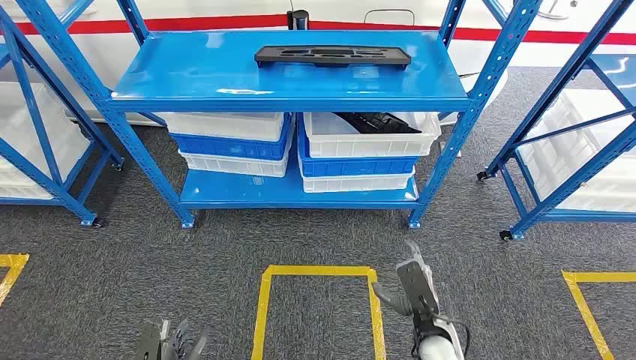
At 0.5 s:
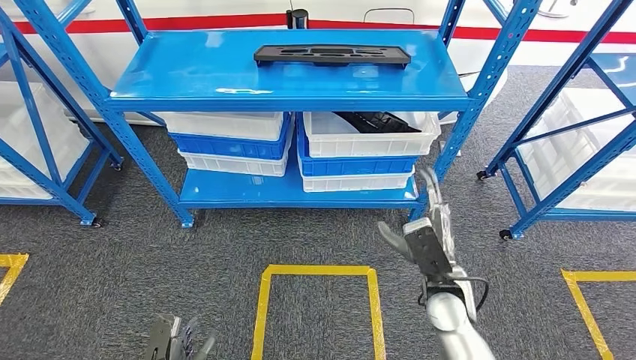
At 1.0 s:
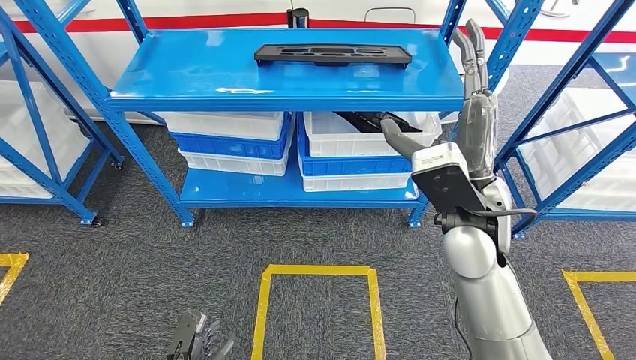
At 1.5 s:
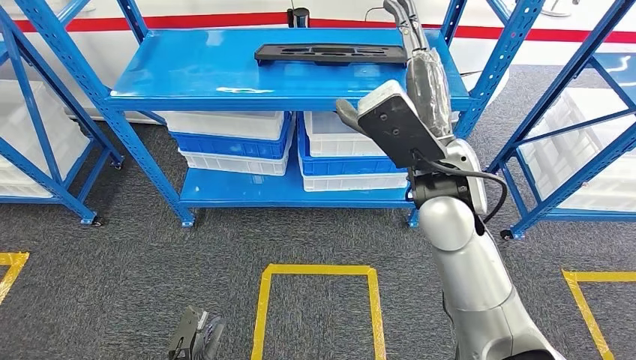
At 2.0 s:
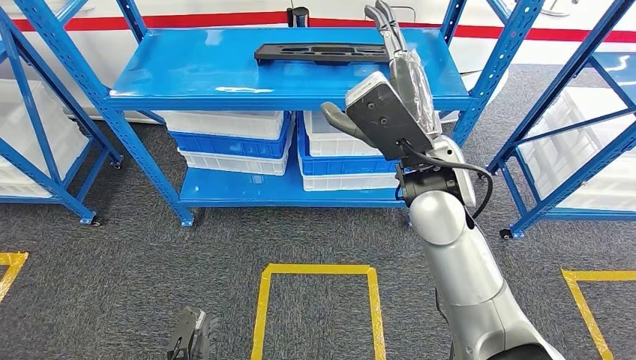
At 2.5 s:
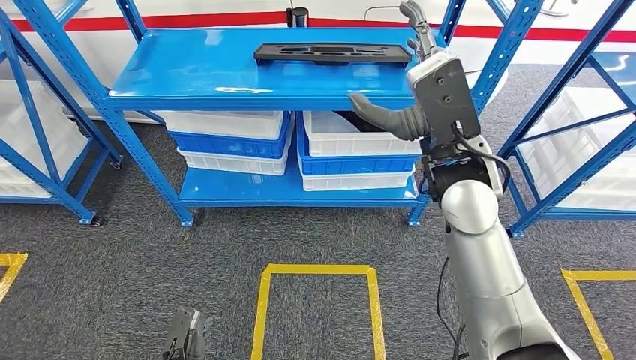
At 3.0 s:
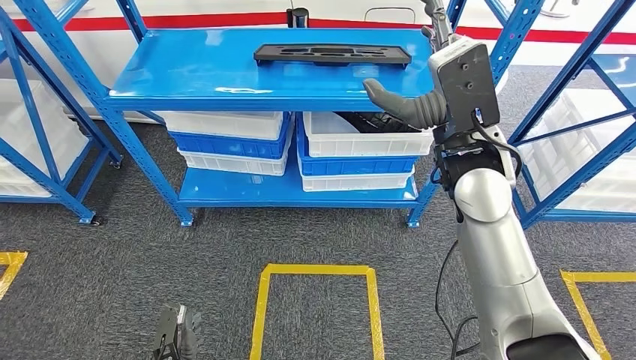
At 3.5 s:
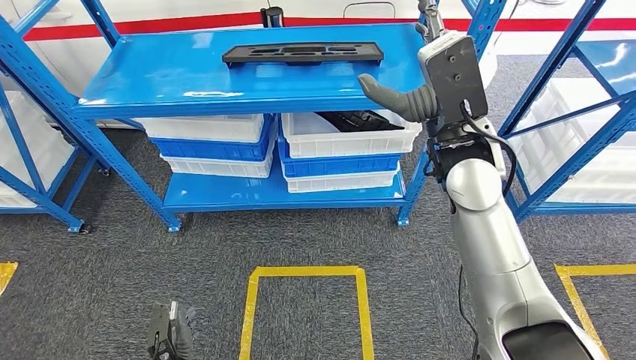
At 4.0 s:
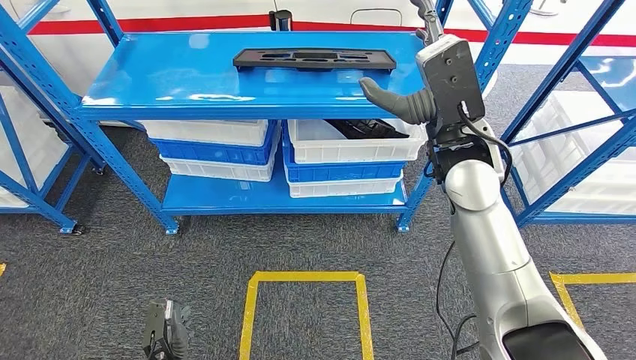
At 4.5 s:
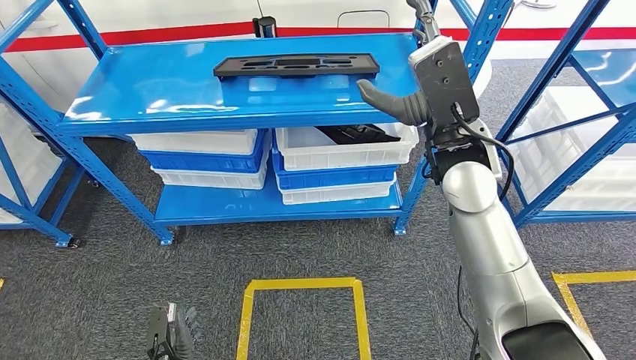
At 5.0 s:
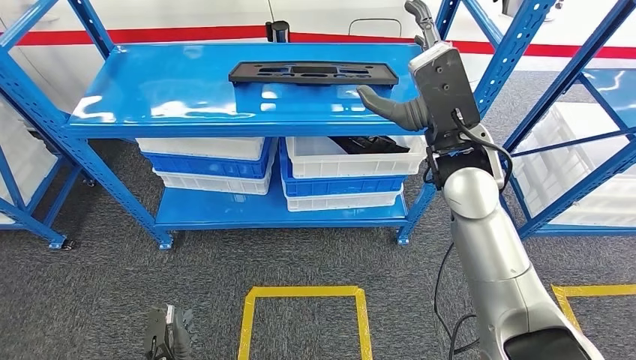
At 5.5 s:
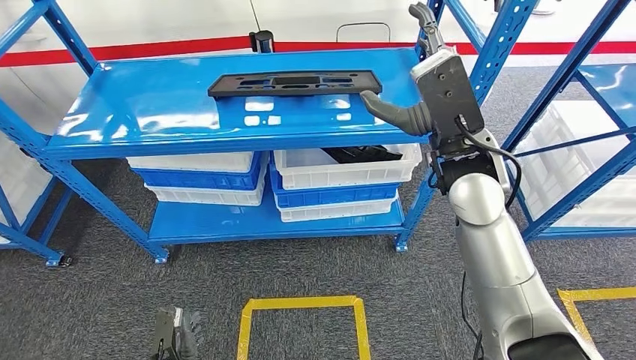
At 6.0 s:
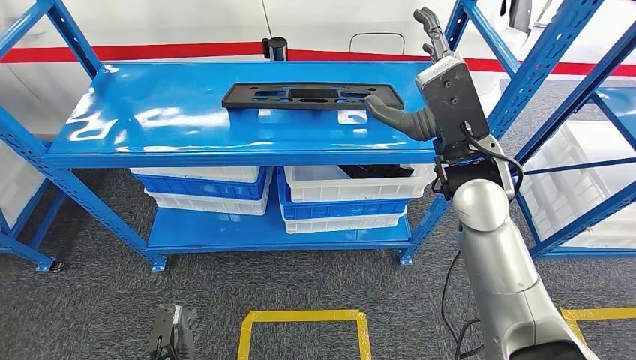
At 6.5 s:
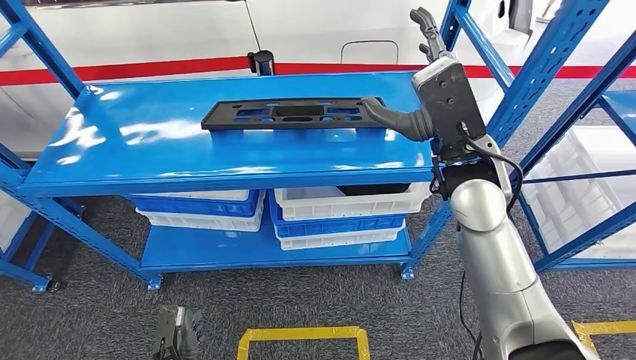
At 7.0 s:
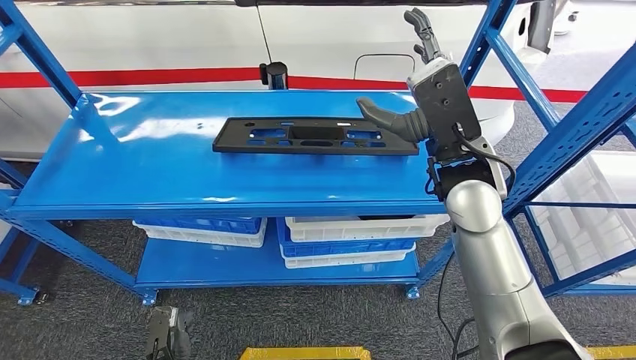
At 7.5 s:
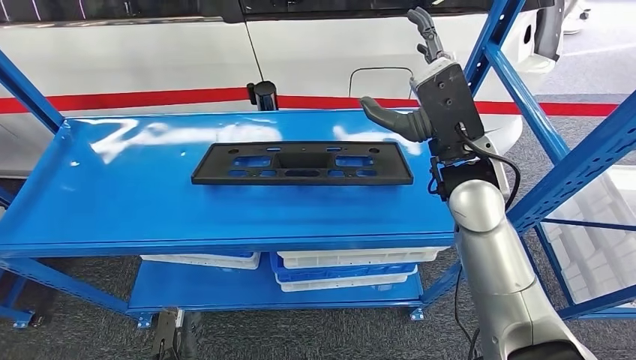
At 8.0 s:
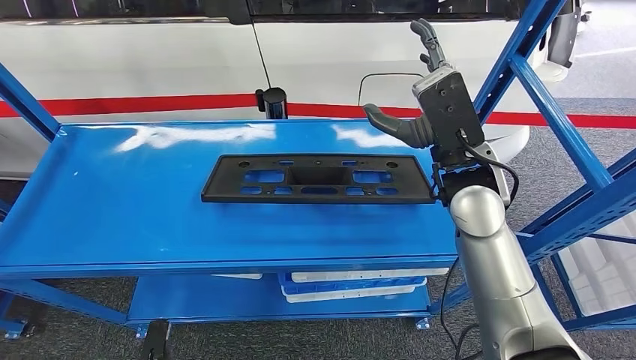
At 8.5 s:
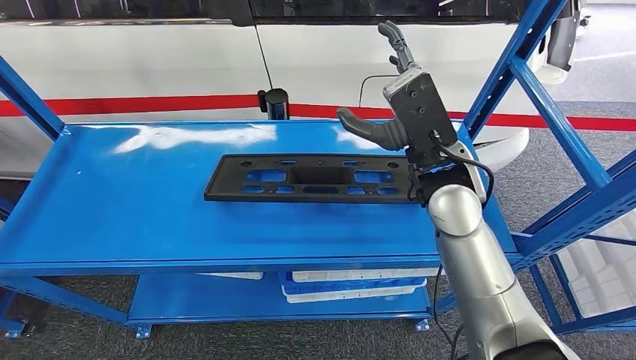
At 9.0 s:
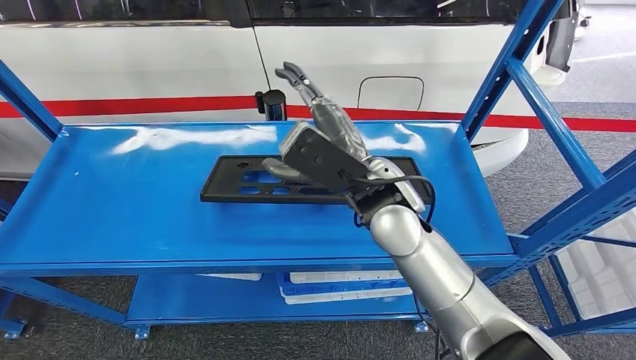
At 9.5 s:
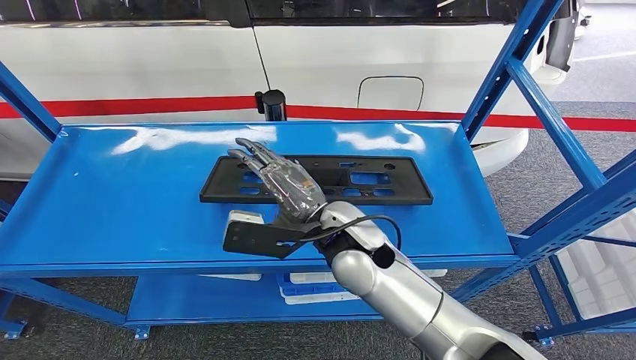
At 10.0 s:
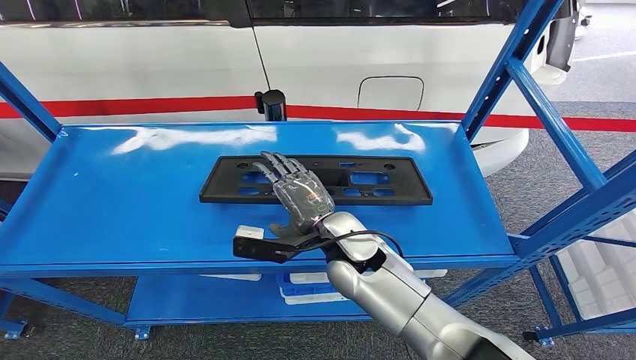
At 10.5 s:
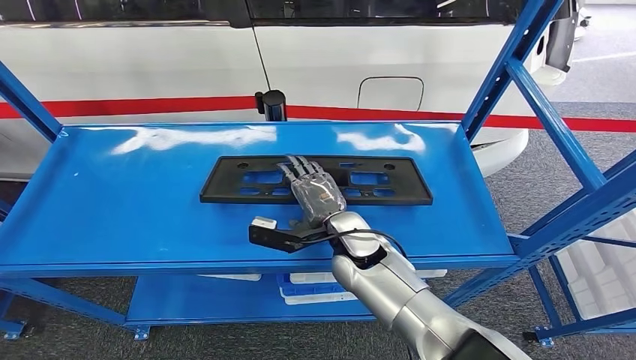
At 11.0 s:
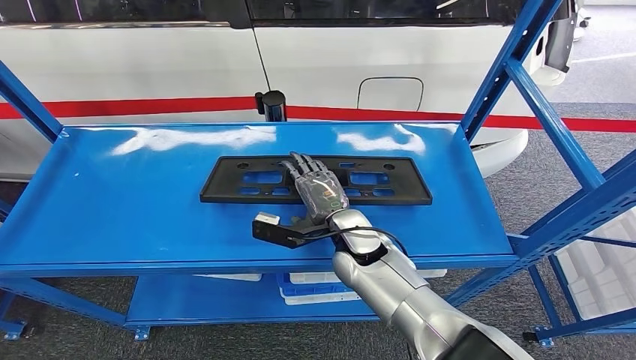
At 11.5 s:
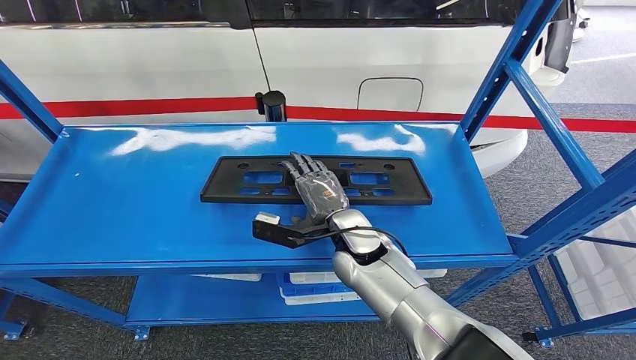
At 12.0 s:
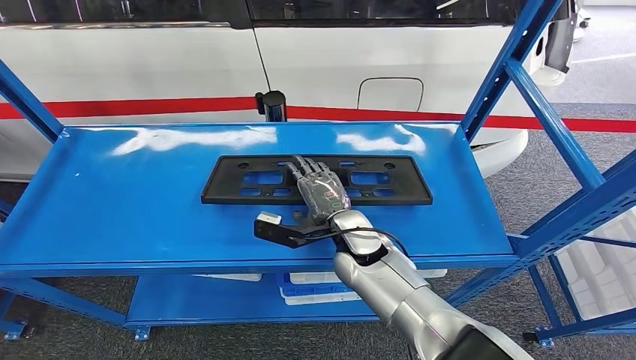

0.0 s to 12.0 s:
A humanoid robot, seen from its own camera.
10.0 to 12.0 s: The hands move only a little.

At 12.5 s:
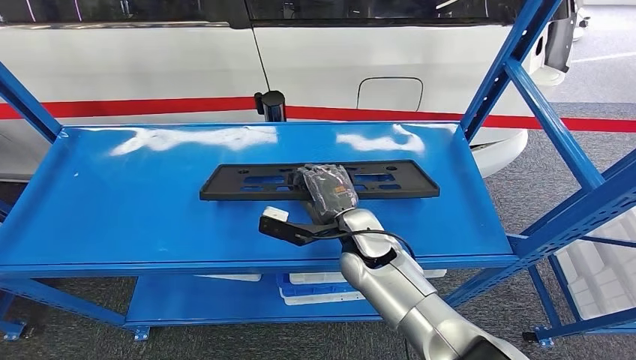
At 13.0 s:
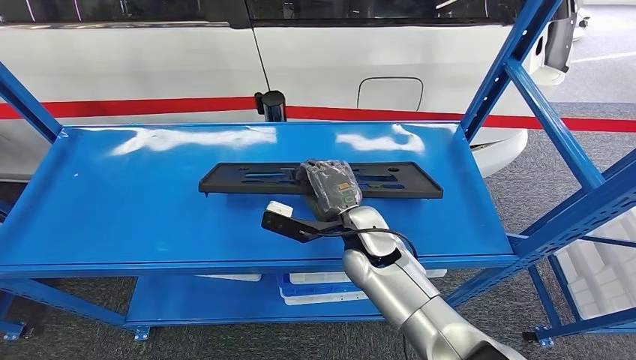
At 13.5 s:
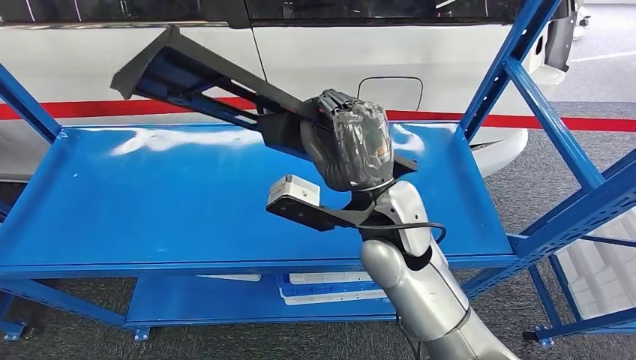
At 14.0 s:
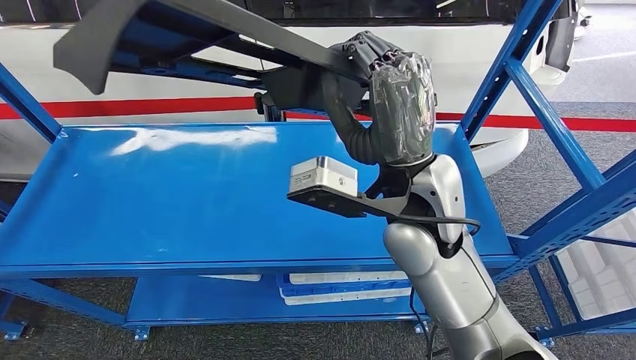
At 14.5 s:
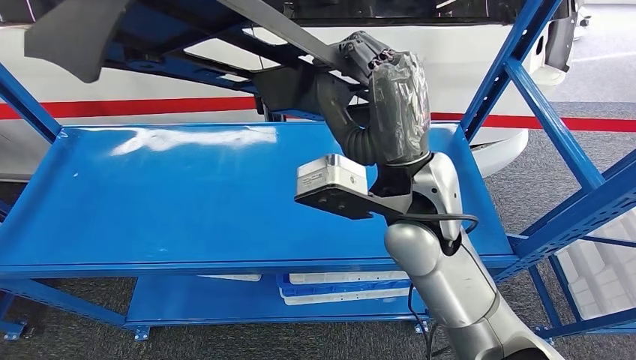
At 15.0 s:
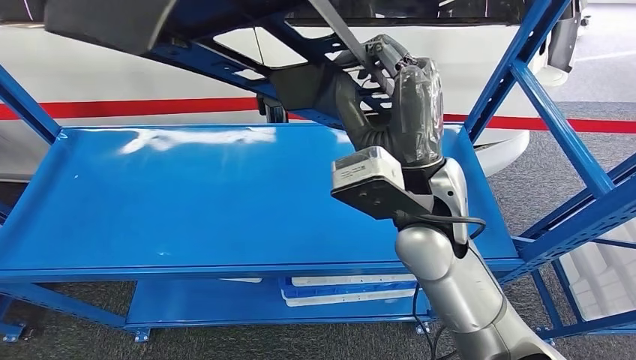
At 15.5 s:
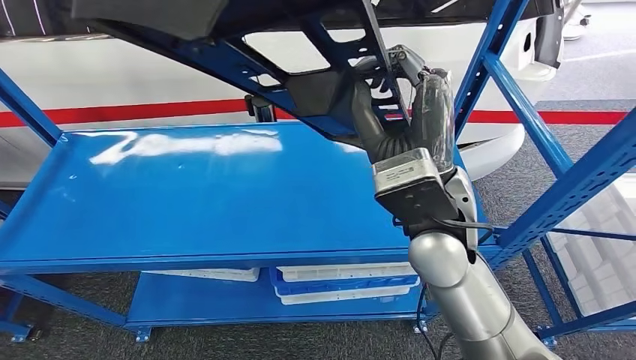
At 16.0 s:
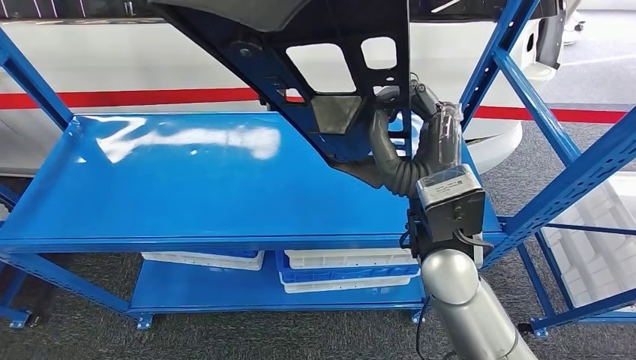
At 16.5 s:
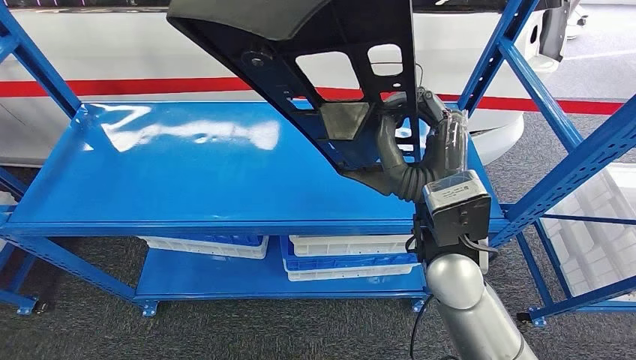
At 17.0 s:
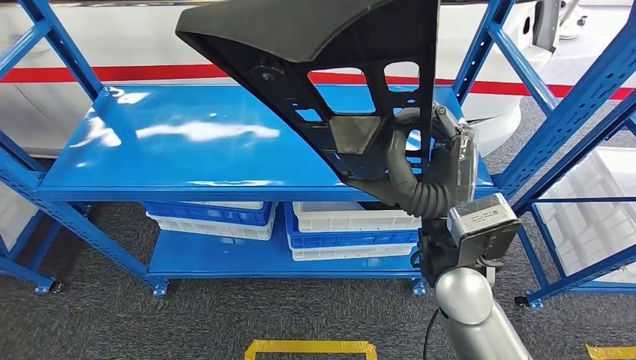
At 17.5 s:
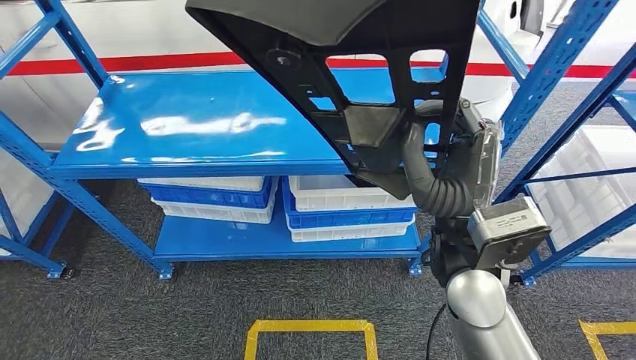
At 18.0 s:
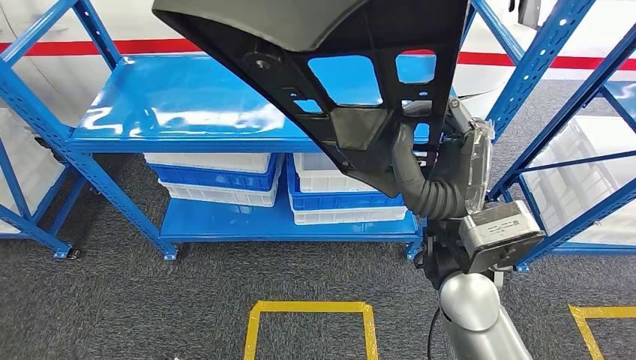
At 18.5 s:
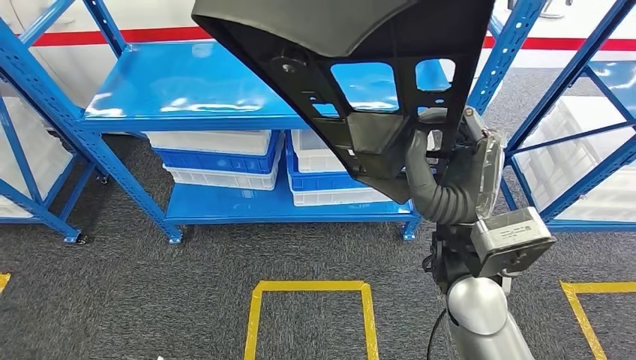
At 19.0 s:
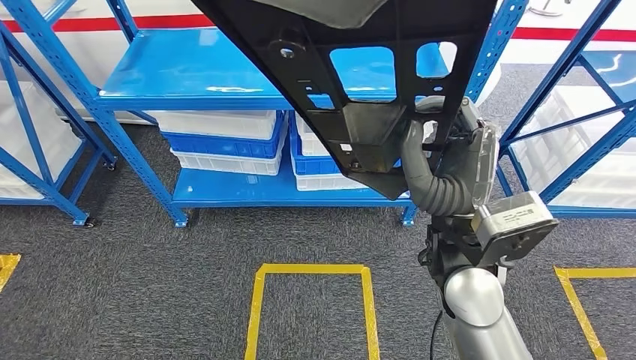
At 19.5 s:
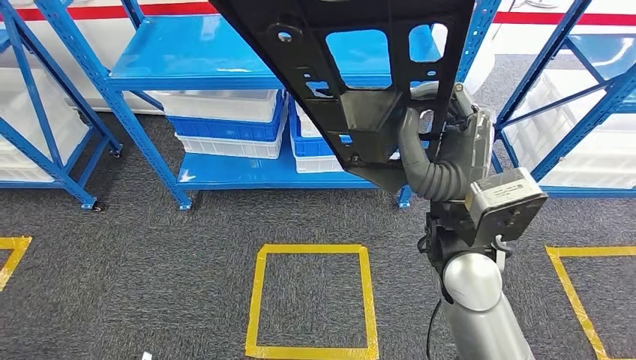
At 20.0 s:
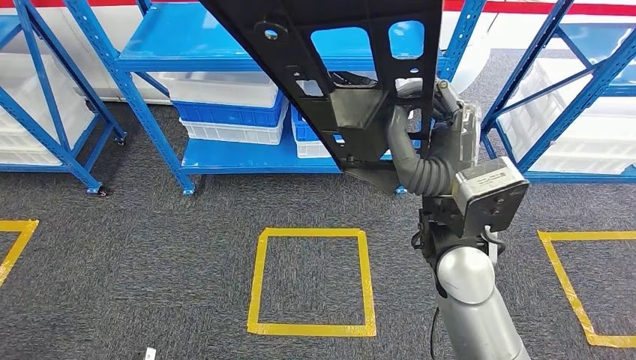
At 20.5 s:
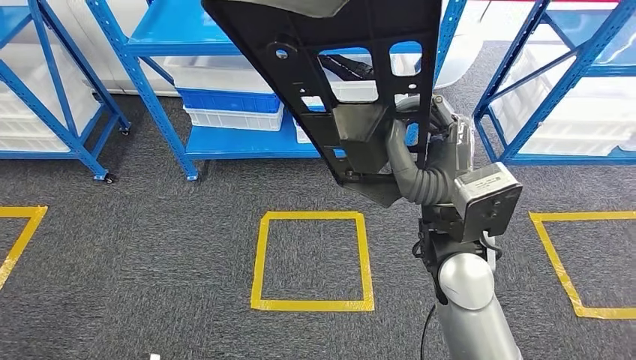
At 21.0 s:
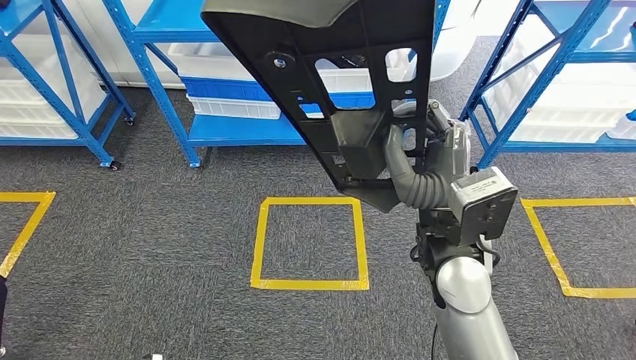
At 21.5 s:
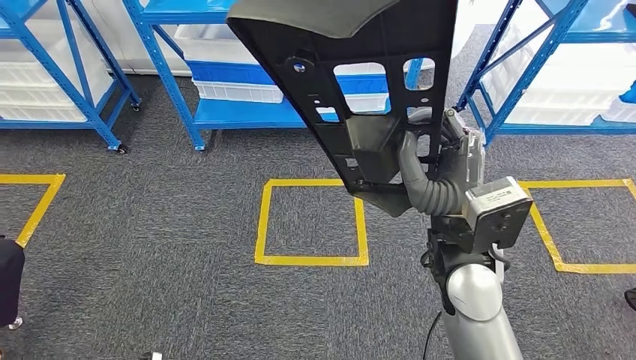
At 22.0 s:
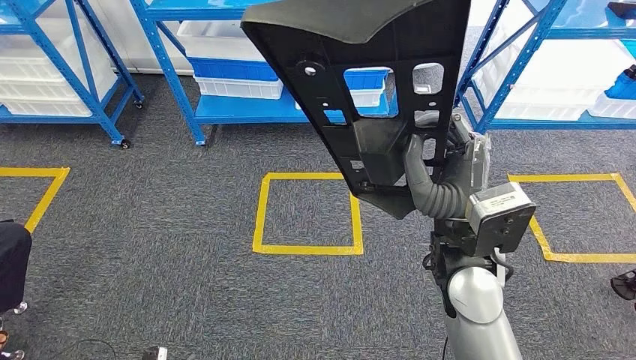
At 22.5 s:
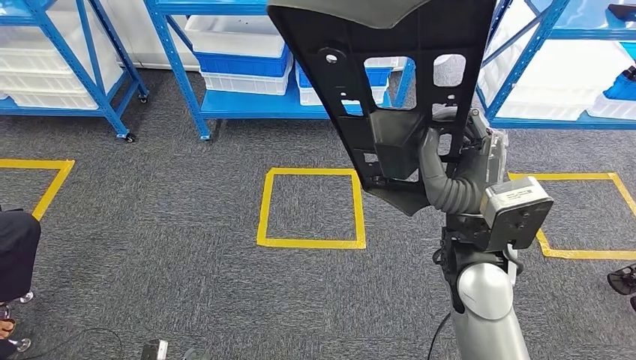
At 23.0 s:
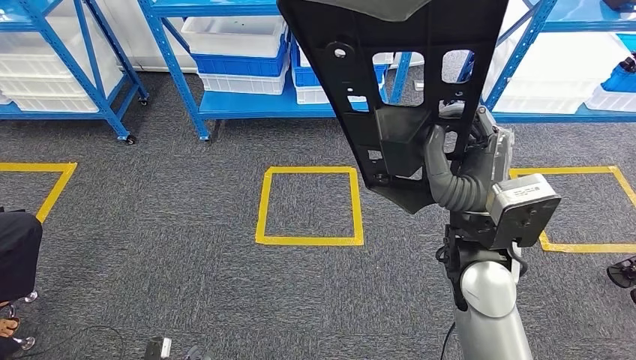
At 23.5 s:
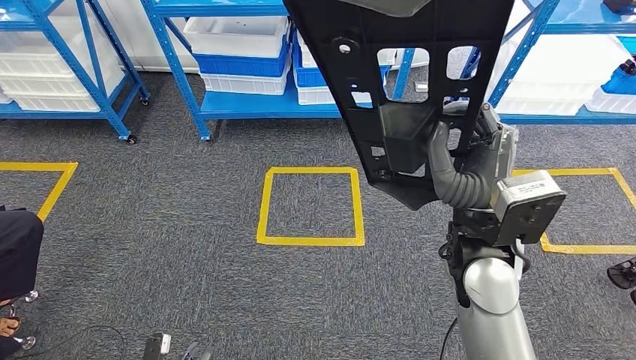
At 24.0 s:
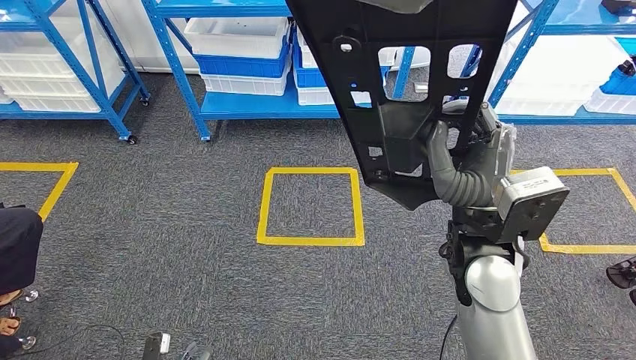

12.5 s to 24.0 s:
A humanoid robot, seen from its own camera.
Step, 16.0 to 19.5 s: Move the large material to the workbench.
